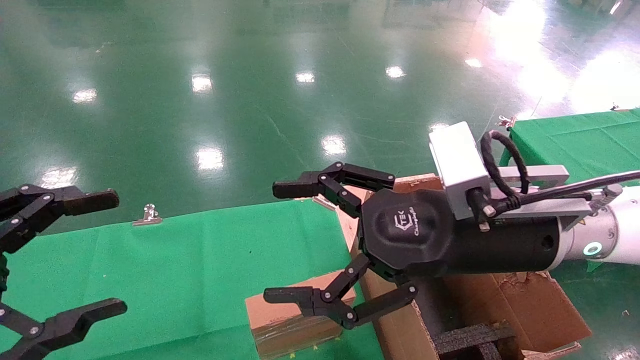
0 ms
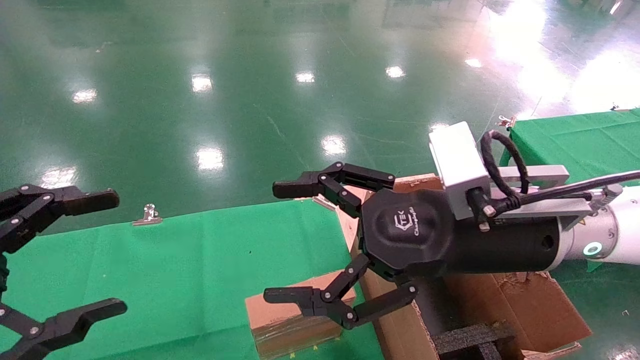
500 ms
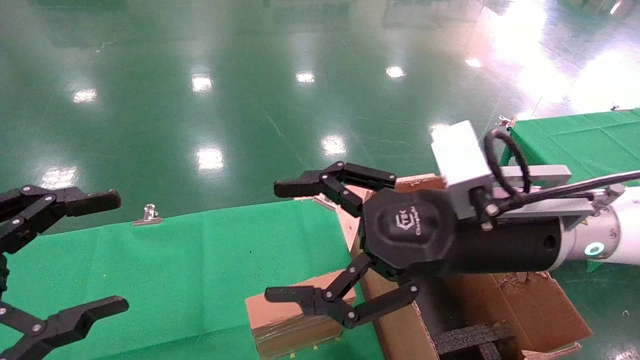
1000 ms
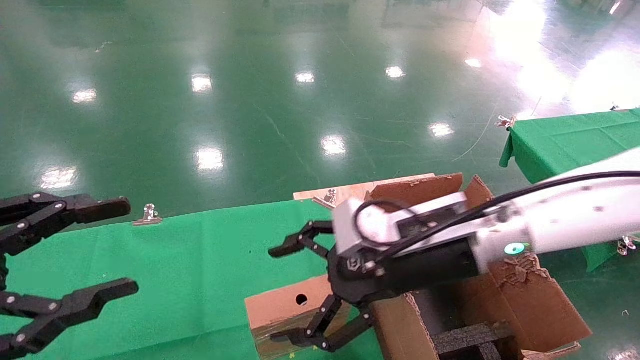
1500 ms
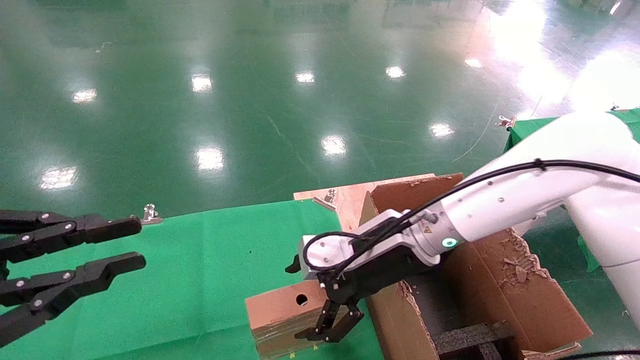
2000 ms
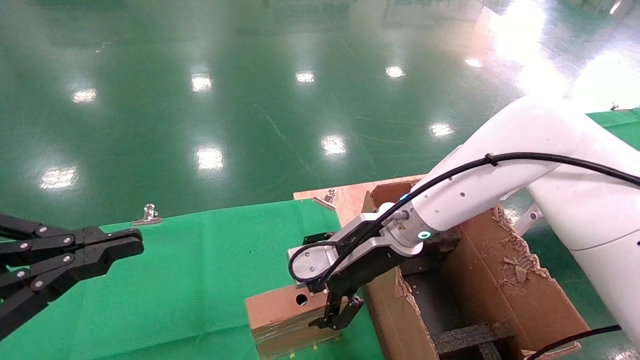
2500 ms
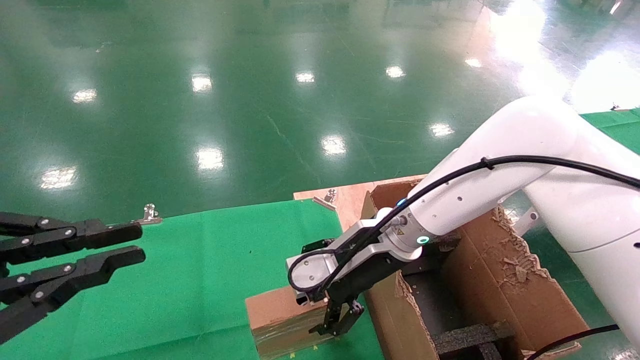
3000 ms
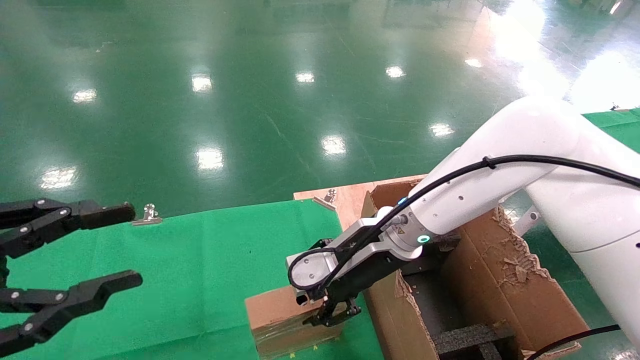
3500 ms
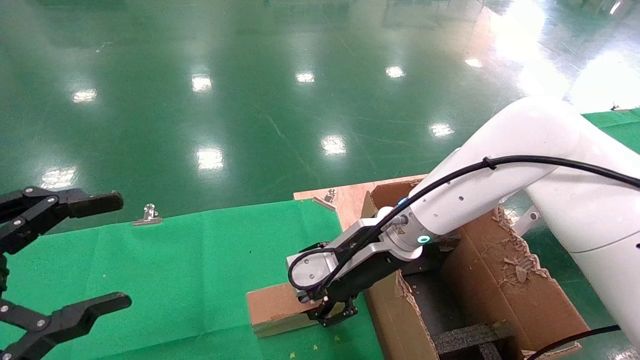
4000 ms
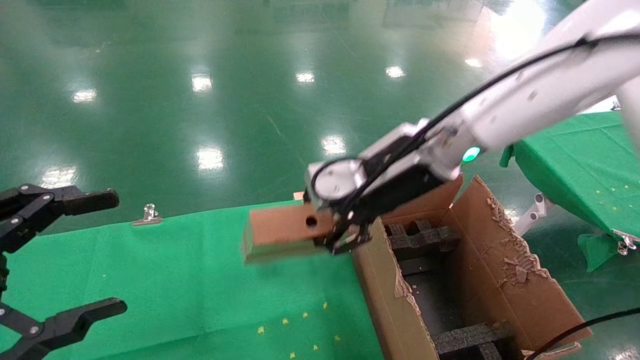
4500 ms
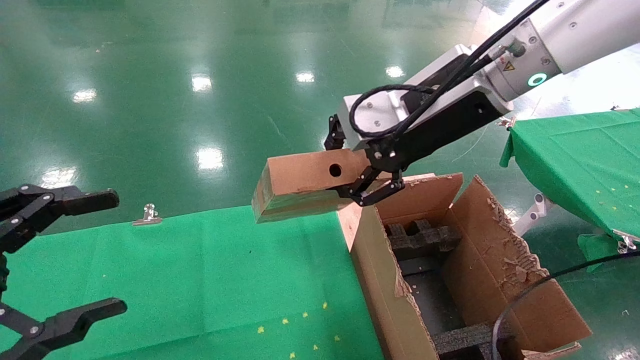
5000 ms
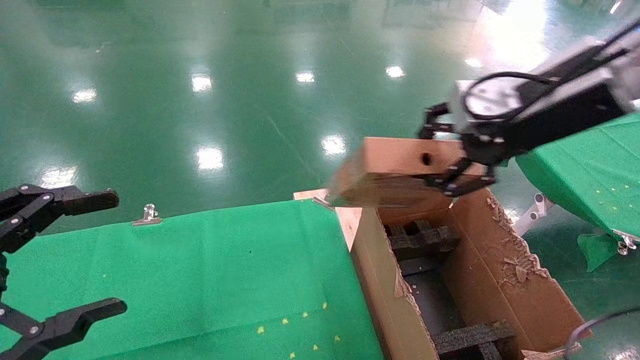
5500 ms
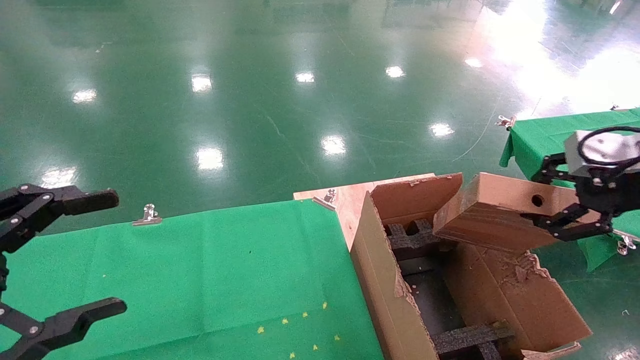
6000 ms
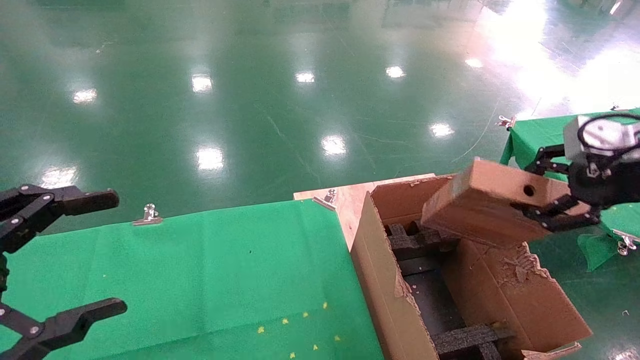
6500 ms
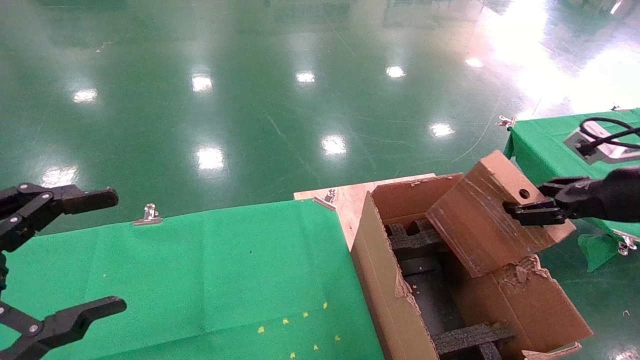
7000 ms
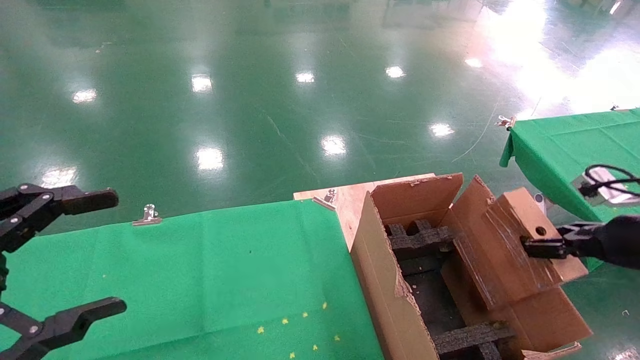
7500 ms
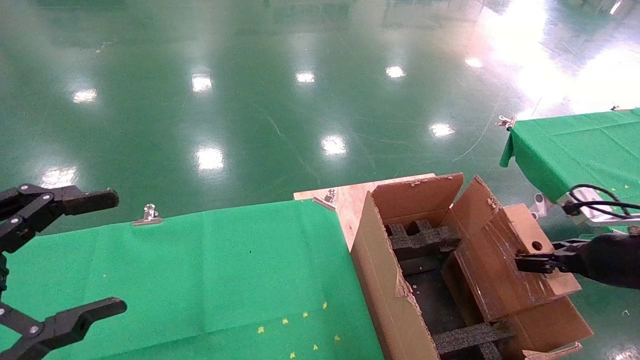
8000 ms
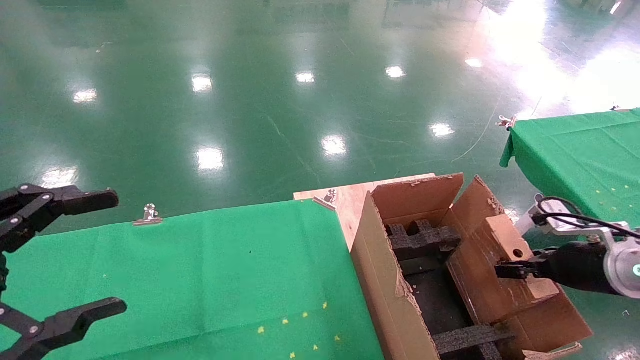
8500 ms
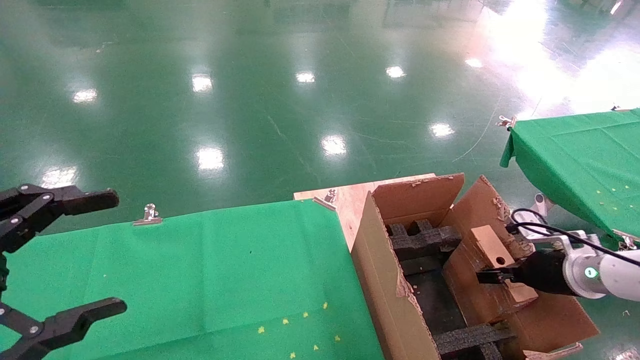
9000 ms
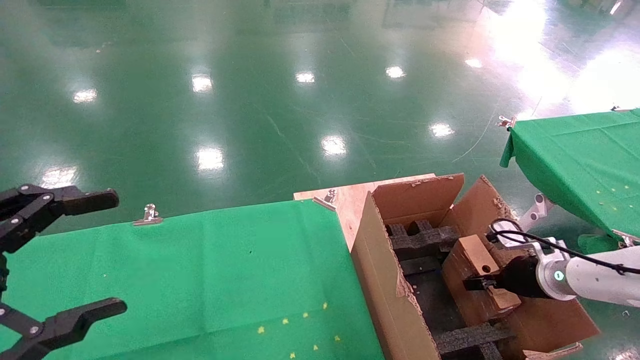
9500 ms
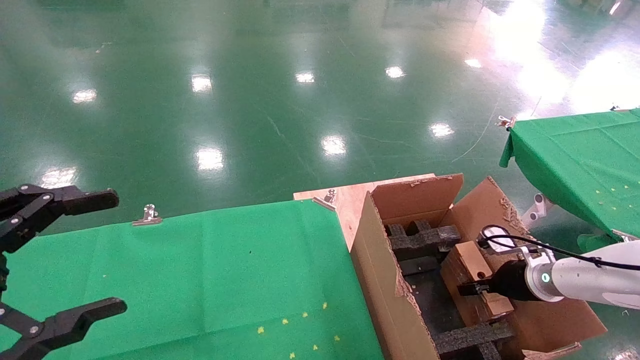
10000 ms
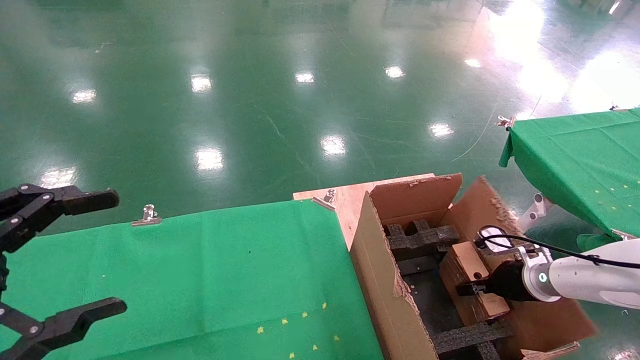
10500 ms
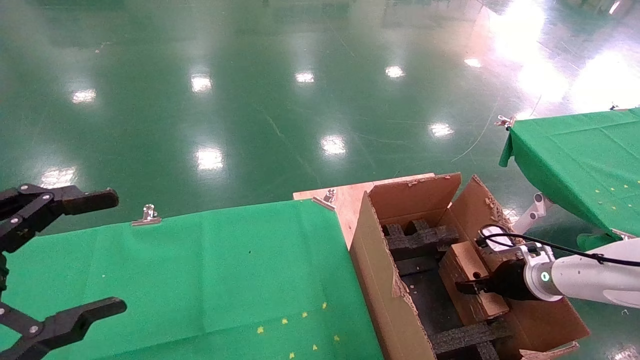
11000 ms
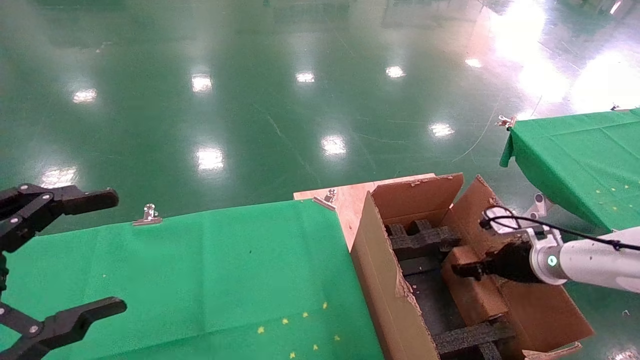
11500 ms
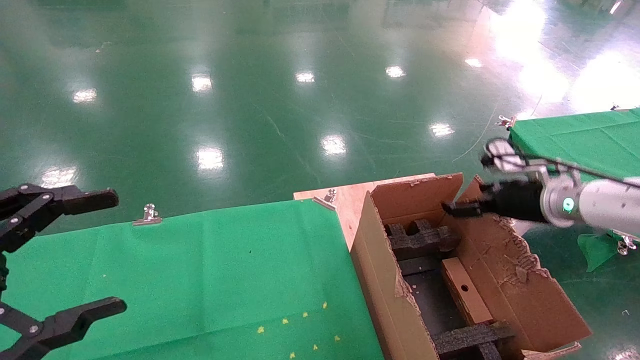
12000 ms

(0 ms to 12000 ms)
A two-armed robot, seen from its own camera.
Task of the whole recording: using a robotic arm to pick up a cardboard box and palace it the carton.
Step, 1500 ms - 4000 ms: Pick up the mouse and the power cord paper box.
Step, 4500 ms - 11500 ms: Place the mouse and the power cord paper box into the container.
0 ms - 2000 ms: The right gripper shifts roughly 15 cm forward, downward and to the left, while the left gripper closes up.
2000 ms - 4000 ms: The left gripper opens. Meanwhile the right gripper closes up.
4000 ms - 6000 ms: The right gripper goes about 30 cm to the right and upward.
6000 ms - 8000 ms: The right gripper is displaced downward by roughly 15 cm.
8000 ms - 10000 ms: The right gripper heads downward and forward, covering approximately 20 cm.
10000 ms - 12000 ms: The right gripper shifts approximately 15 cm upward, and opens.

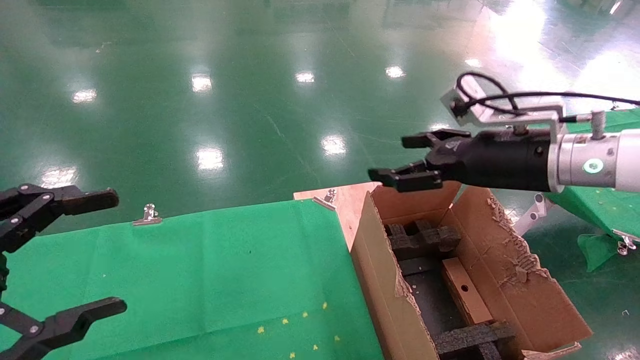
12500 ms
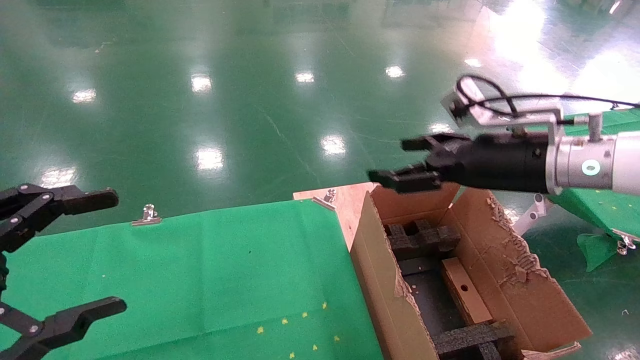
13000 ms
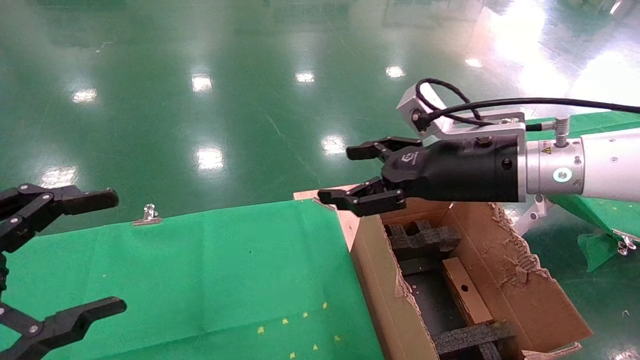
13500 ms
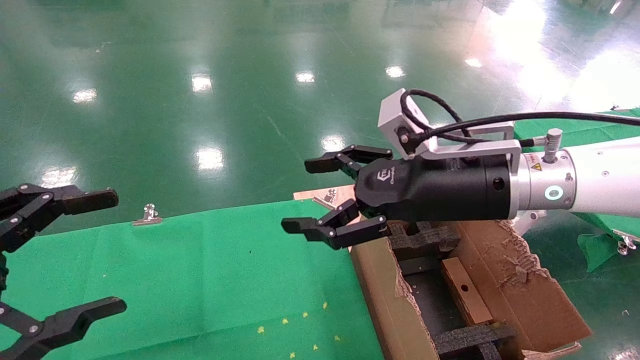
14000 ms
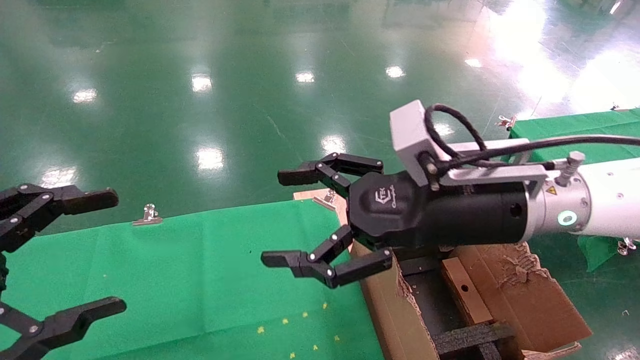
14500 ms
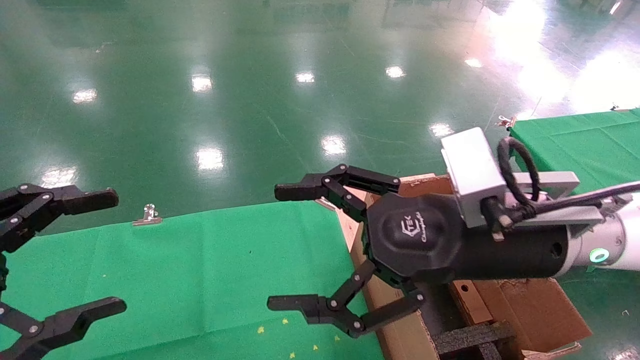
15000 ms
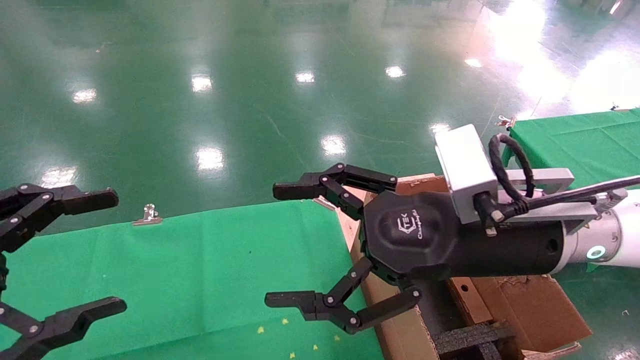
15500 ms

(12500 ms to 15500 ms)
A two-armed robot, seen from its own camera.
Task of the whole recording: using a robotic arm to pick up a cardboard box and palace it the carton.
12500 ms - 14000 ms: The right gripper shifts about 10 cm to the left.
14000 ms - 15500 ms: The right gripper moves backward, some 5 cm.

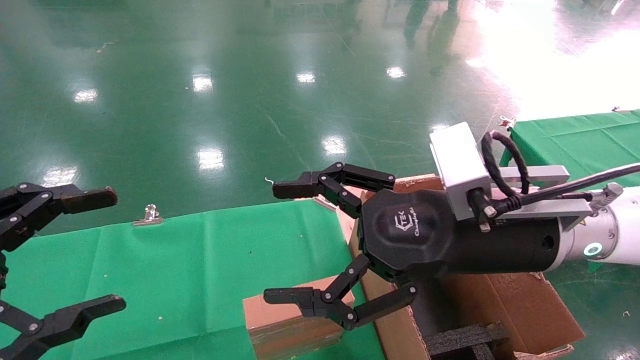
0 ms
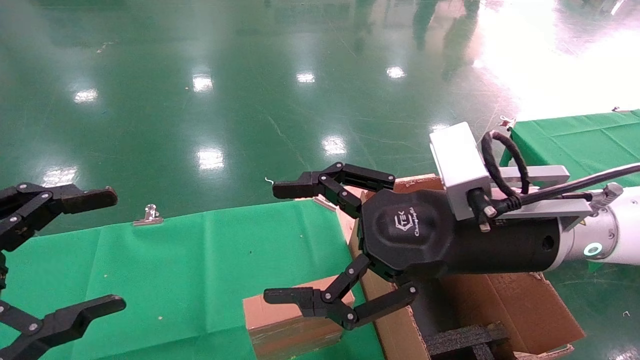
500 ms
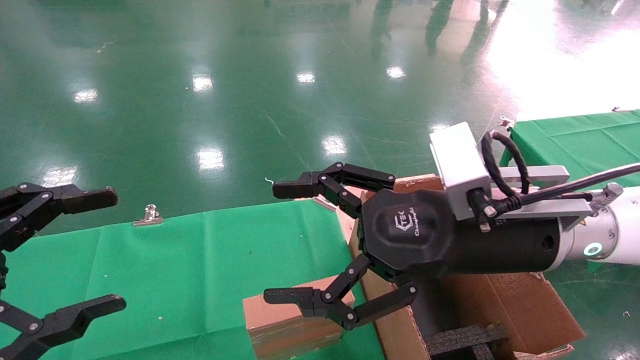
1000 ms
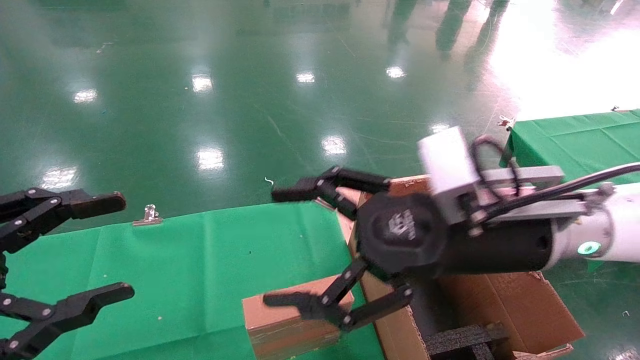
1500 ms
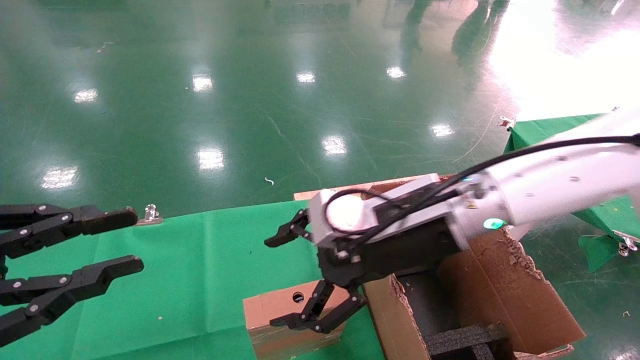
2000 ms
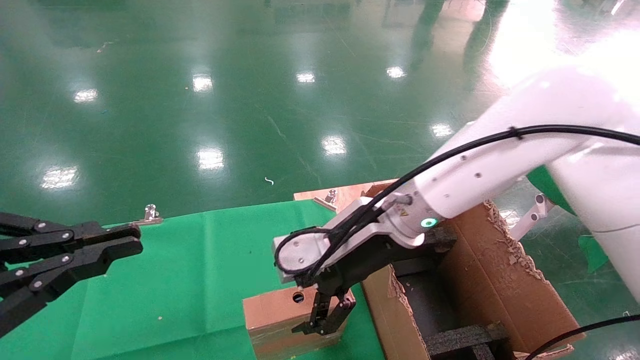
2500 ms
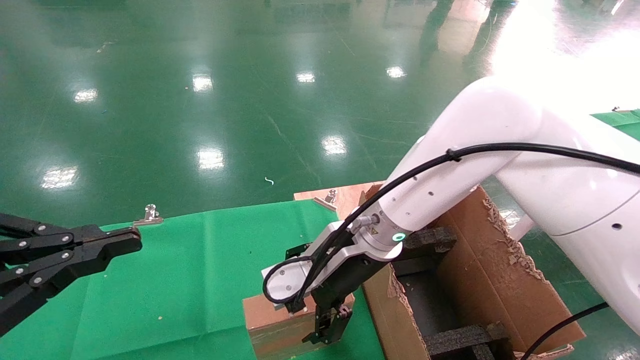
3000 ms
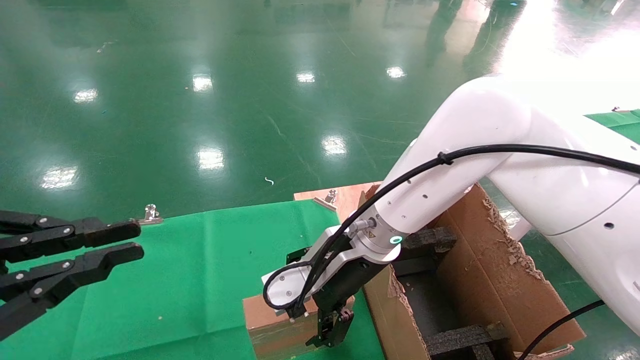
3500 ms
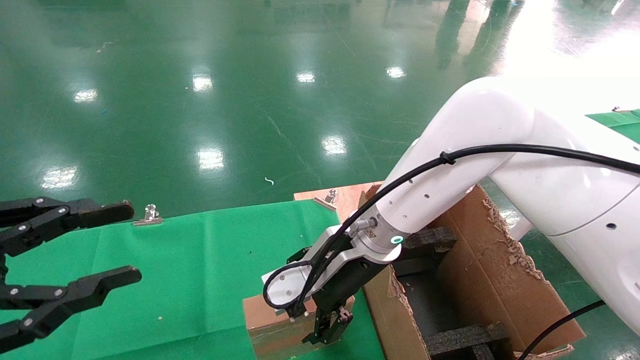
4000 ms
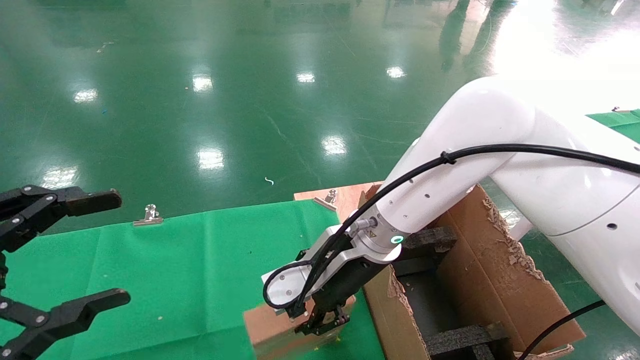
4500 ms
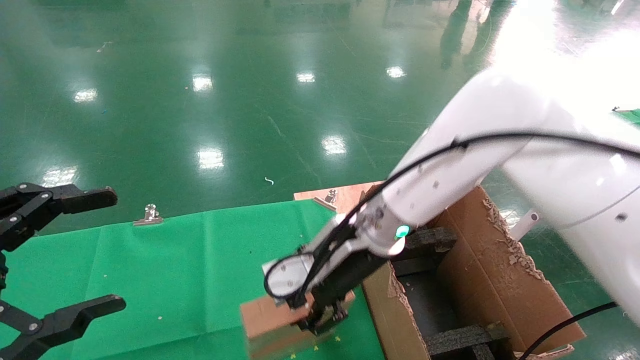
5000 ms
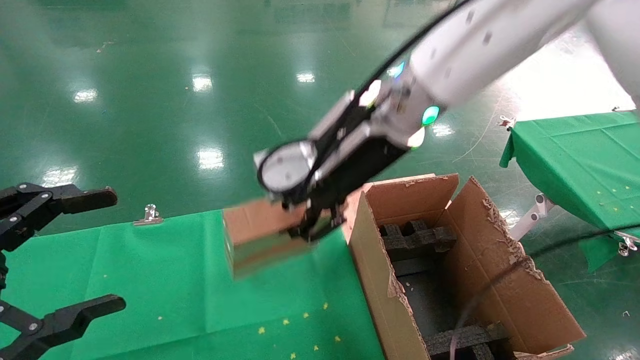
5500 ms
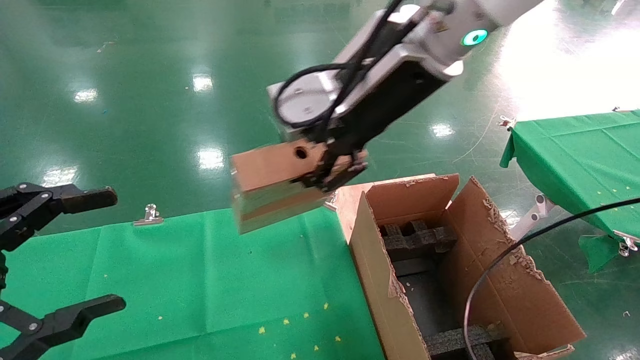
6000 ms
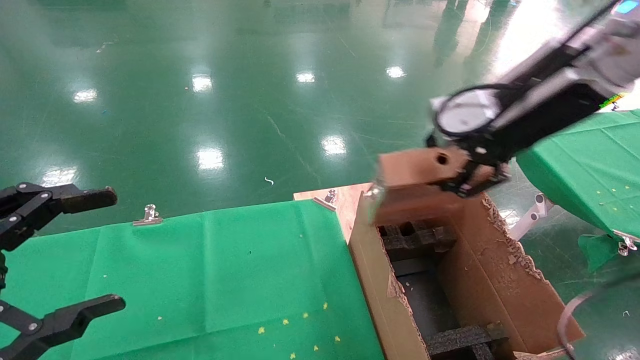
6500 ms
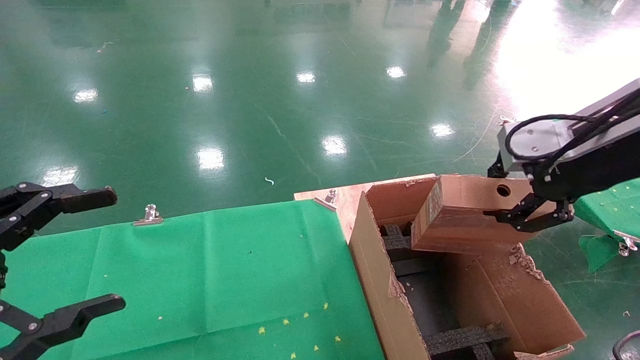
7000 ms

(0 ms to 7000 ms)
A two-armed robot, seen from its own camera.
Task of the whole recording: using a robotic arm to pick up a cardboard box and palace it the carton.
Step, 2000 ms - 4500 ms: Pick up the mouse and the power cord paper box.
0 ms - 2000 ms: The right gripper goes approximately 10 cm forward and to the left. The left gripper closes up.
2000 ms - 3500 ms: The left gripper closes, while the right gripper moves to the left, some 5 cm.
3500 ms - 5000 ms: The left gripper opens. The right gripper closes its fingers.
5000 ms - 7000 ms: The right gripper heads to the right, upward and backward, covering about 30 cm.
